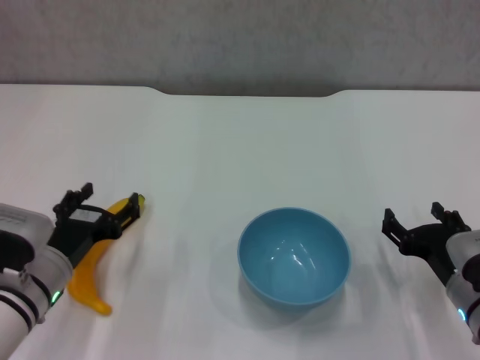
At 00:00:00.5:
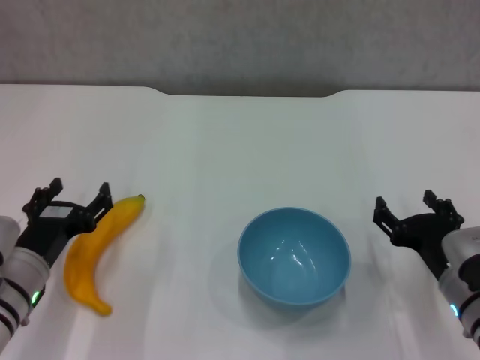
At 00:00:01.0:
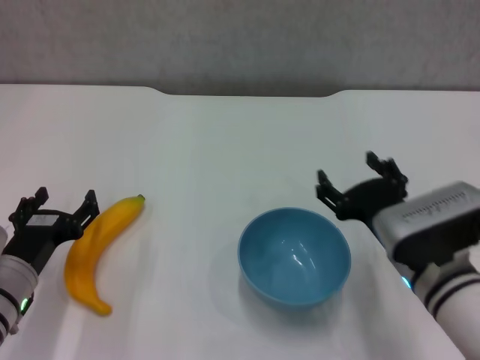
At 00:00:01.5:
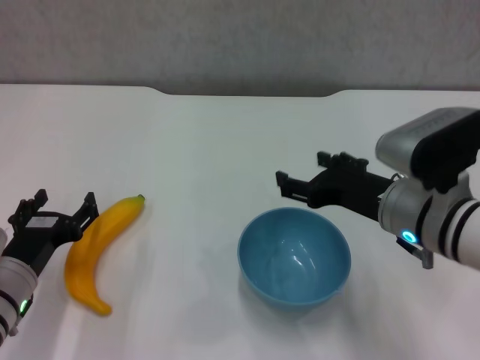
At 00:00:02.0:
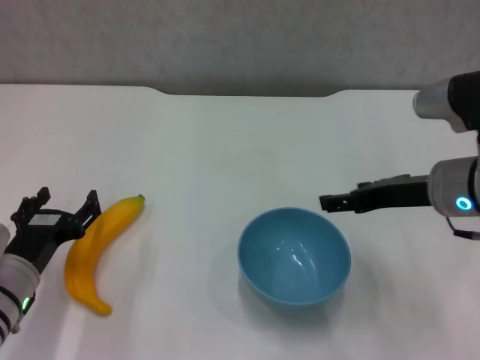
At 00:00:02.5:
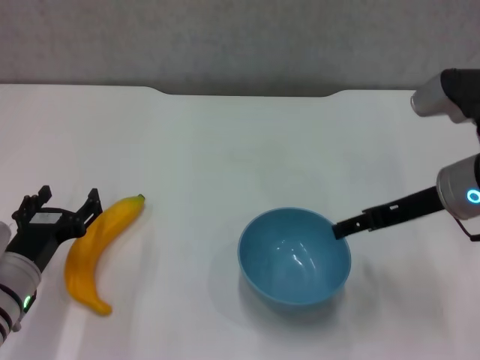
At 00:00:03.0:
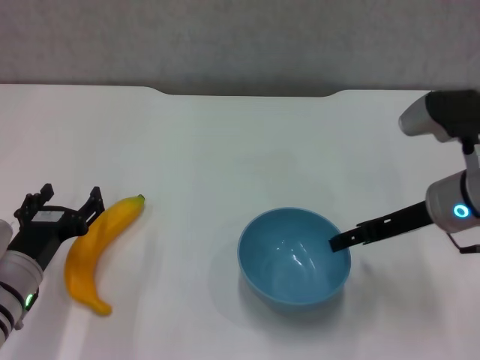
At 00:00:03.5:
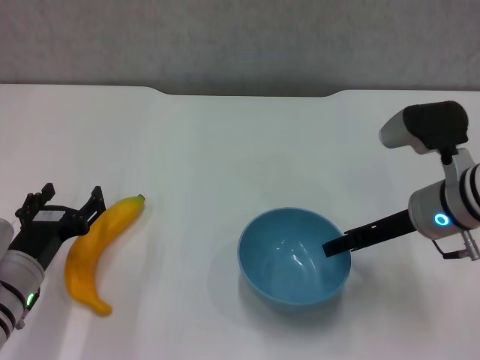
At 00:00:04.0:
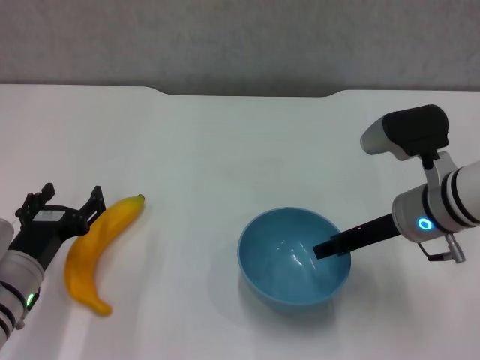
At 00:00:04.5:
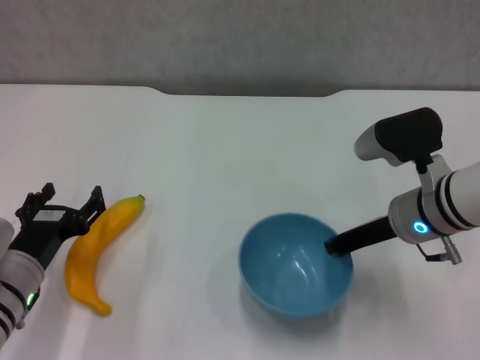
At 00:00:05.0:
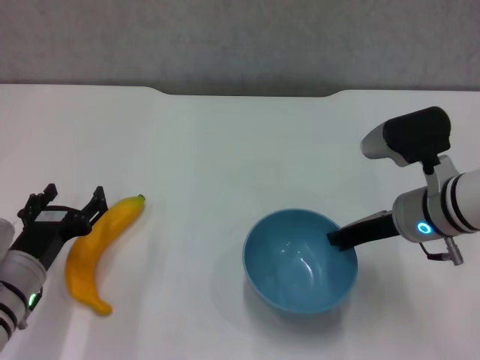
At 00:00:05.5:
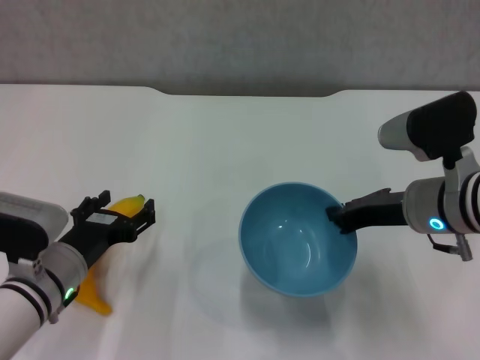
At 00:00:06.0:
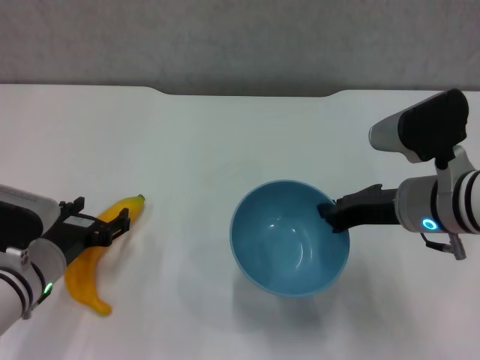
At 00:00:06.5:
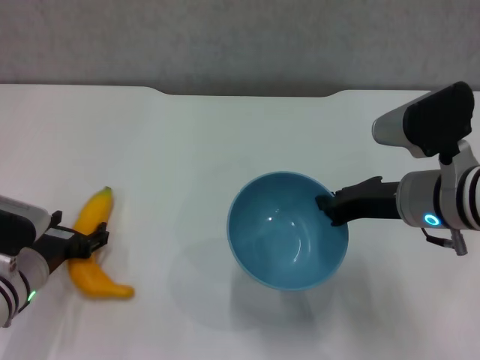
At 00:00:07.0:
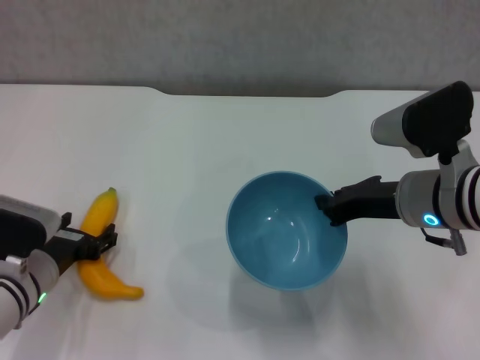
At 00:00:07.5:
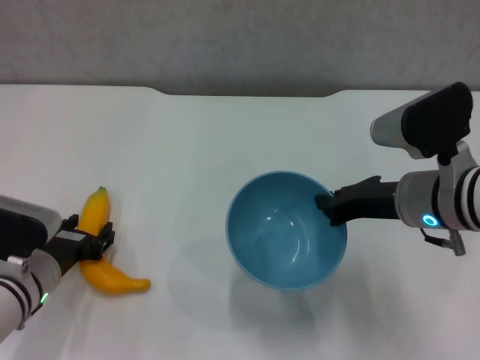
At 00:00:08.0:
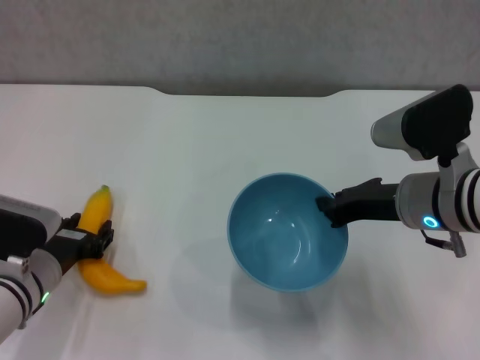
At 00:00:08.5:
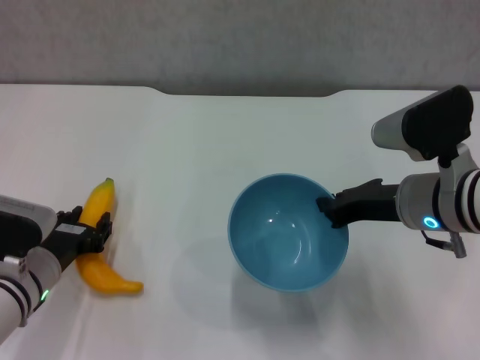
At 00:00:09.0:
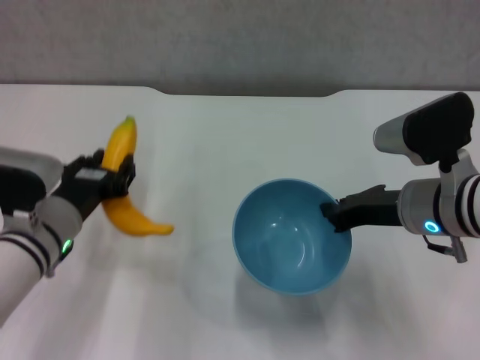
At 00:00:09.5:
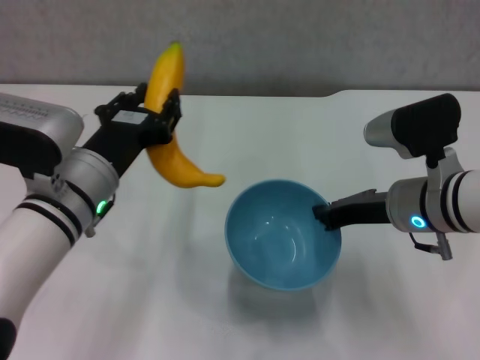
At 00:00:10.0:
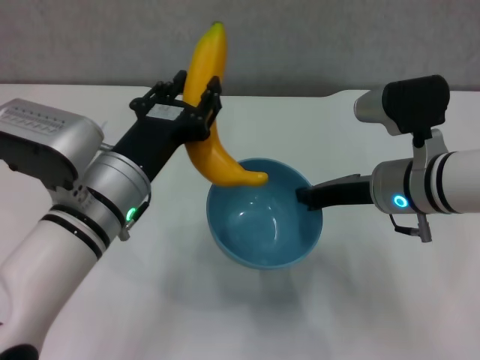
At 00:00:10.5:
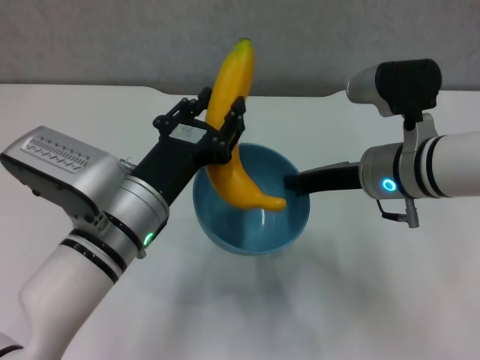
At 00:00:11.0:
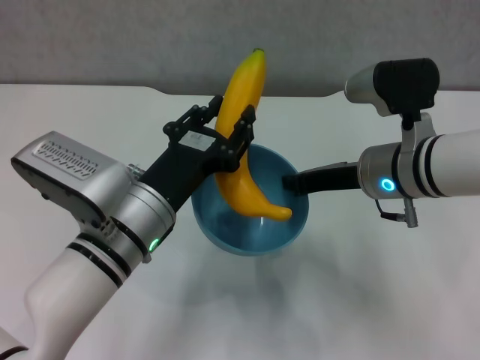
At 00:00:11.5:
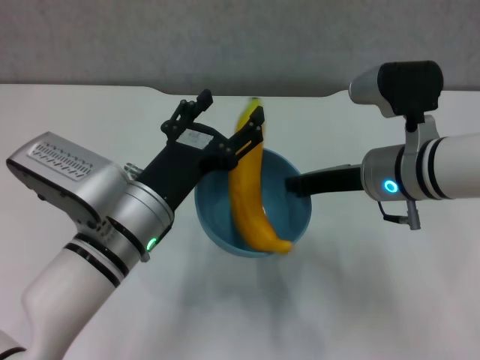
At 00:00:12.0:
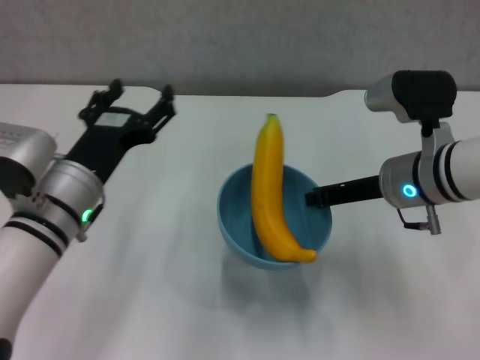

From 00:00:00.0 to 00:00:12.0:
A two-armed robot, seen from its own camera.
Step, from 00:00:00.0 to 00:00:04.5: Grasp the blue bowl with right gripper.
Step, from 00:00:05.5 to 00:00:08.0: Grasp the banana with left gripper.
Step, from 00:00:08.5 to 00:00:11.0: Place the banana in the blue bowl with left gripper.
From 00:00:00.0 to 00:00:02.0: The right gripper travels upward and forward by approximately 15 cm.
From 00:00:02.0 to 00:00:04.0: The right gripper shifts by approximately 5 cm, and closes.
From 00:00:04.0 to 00:00:06.0: The right gripper closes.
From 00:00:06.0 to 00:00:08.0: The left gripper closes up.
From 00:00:08.0 to 00:00:10.0: The left gripper goes some 15 cm upward and to the right.
From 00:00:10.0 to 00:00:12.0: The left gripper changes place by about 5 cm, and opens up.

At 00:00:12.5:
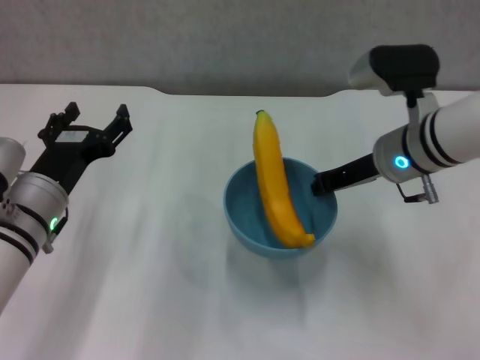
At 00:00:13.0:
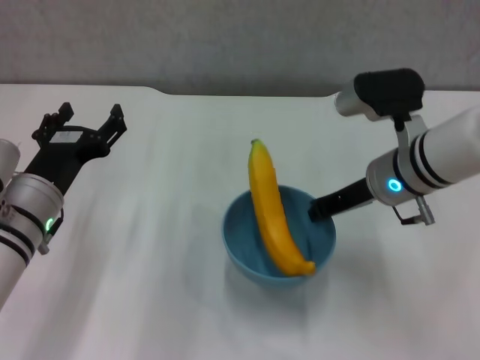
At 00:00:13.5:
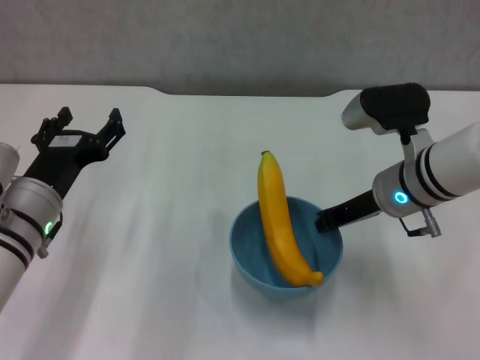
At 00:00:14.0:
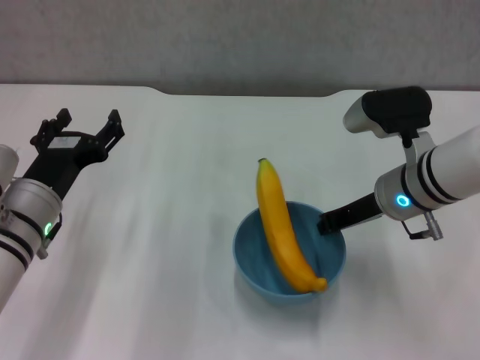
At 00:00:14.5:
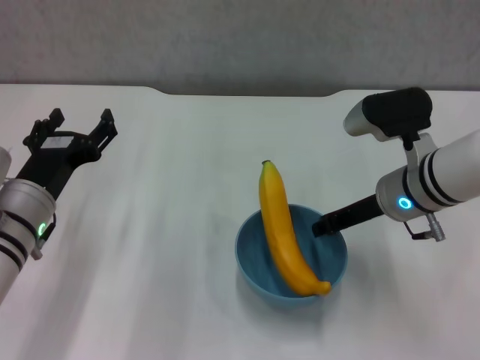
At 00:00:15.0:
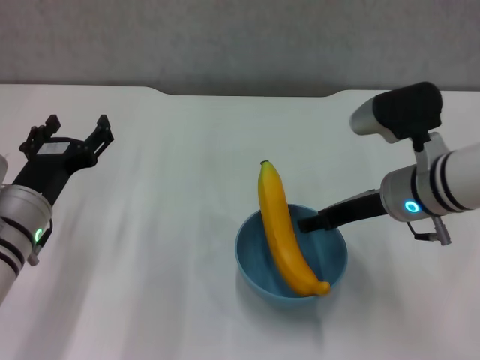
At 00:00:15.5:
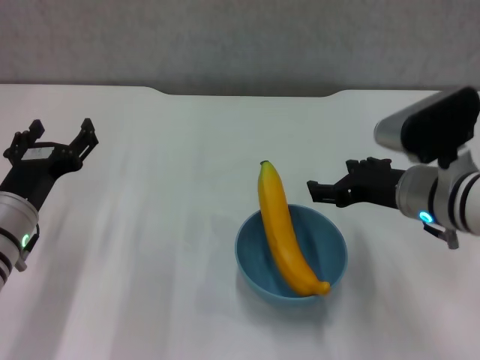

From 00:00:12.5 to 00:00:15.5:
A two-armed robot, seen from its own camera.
Step, from 00:00:12.5 to 00:00:15.0: Place the bowl on the table with right gripper.
From 00:00:14.0 to 00:00:15.5: The right gripper opens up.

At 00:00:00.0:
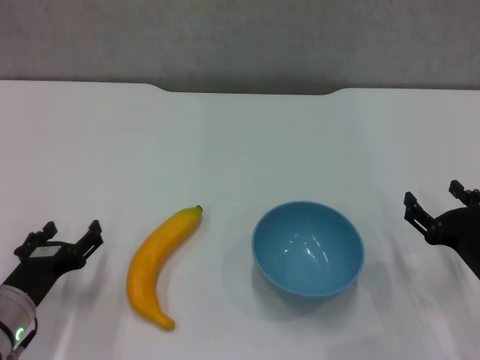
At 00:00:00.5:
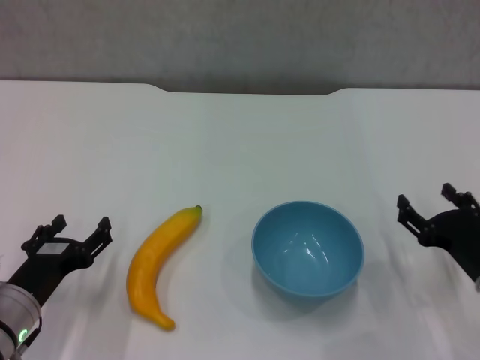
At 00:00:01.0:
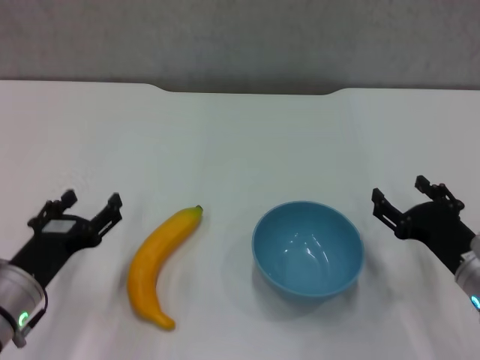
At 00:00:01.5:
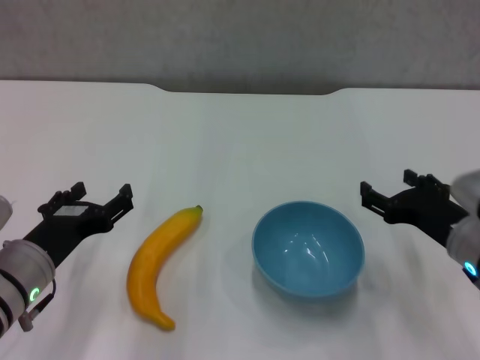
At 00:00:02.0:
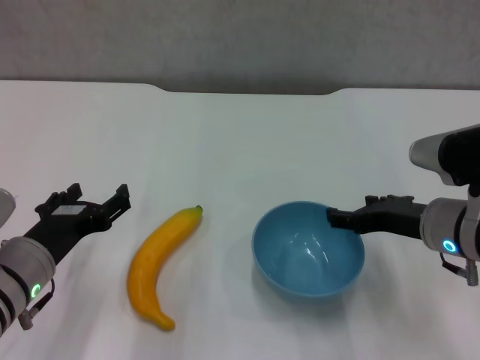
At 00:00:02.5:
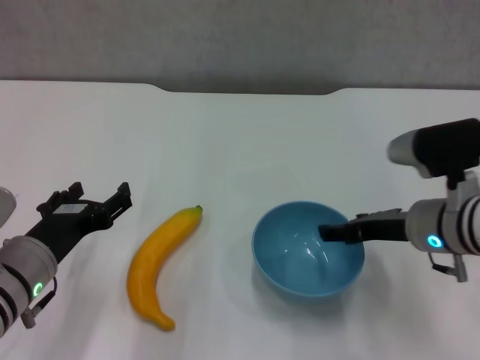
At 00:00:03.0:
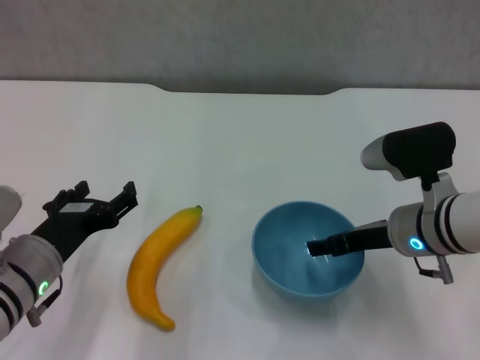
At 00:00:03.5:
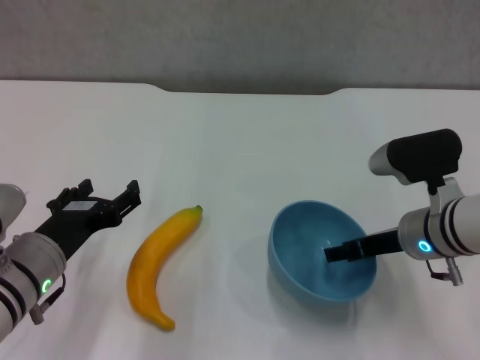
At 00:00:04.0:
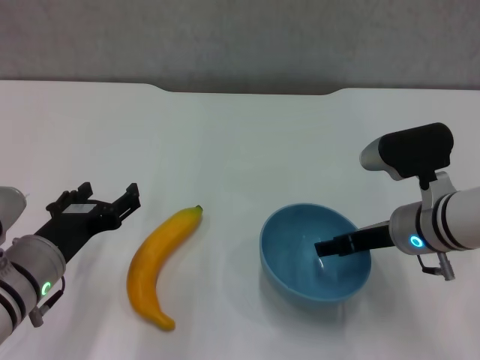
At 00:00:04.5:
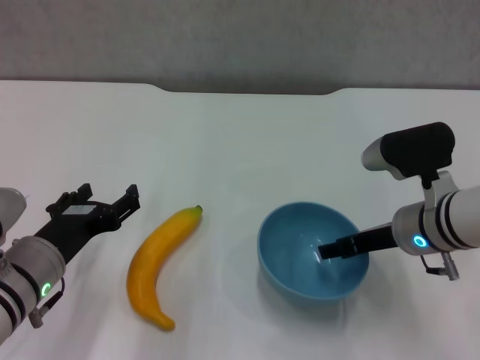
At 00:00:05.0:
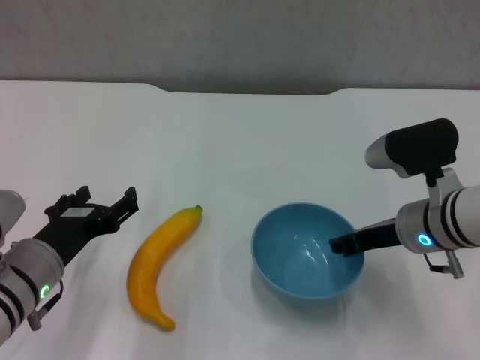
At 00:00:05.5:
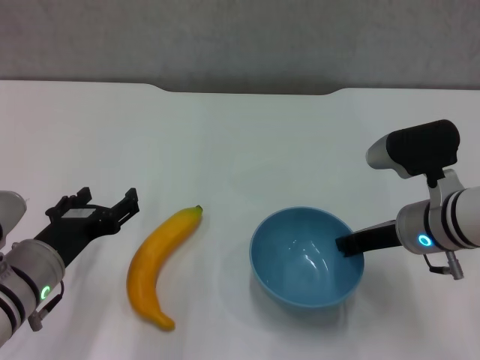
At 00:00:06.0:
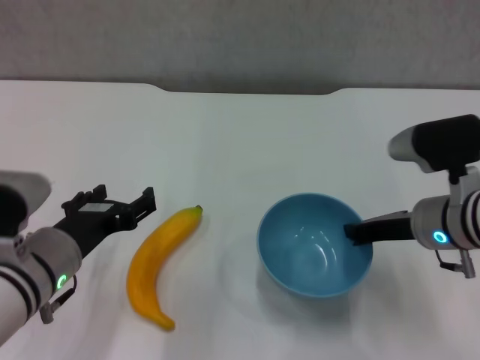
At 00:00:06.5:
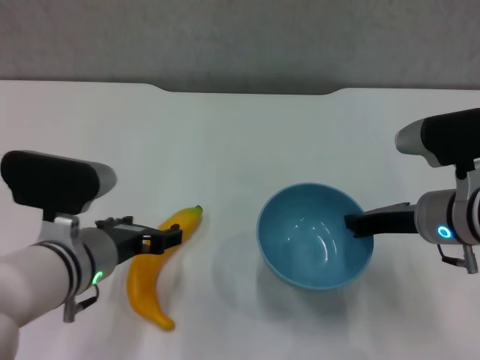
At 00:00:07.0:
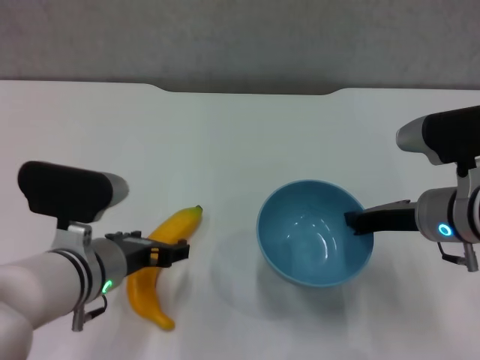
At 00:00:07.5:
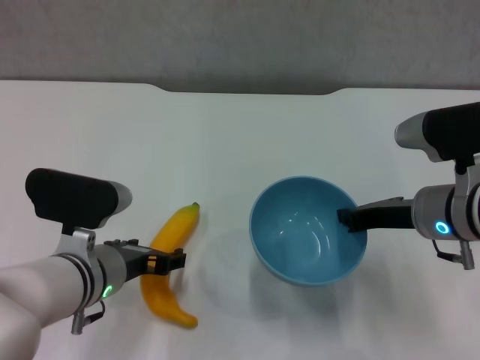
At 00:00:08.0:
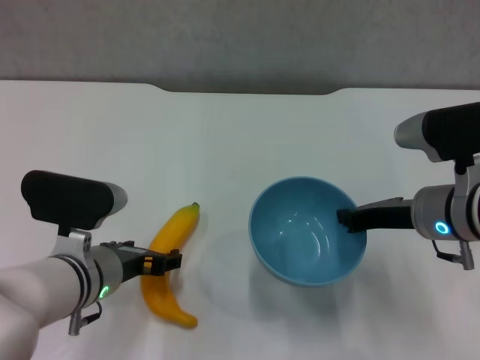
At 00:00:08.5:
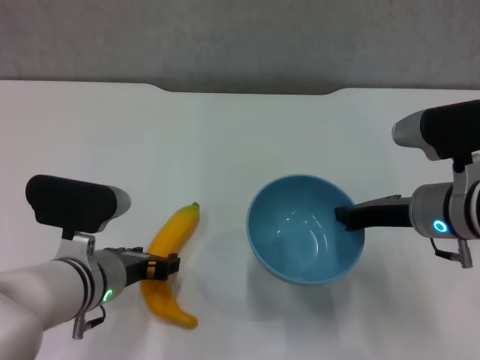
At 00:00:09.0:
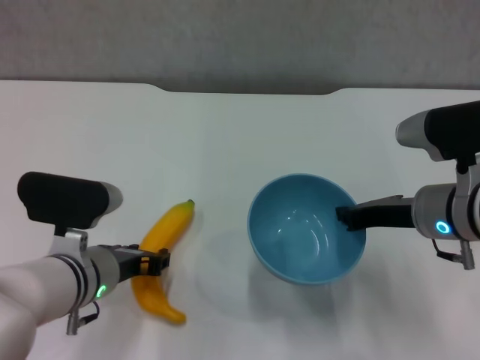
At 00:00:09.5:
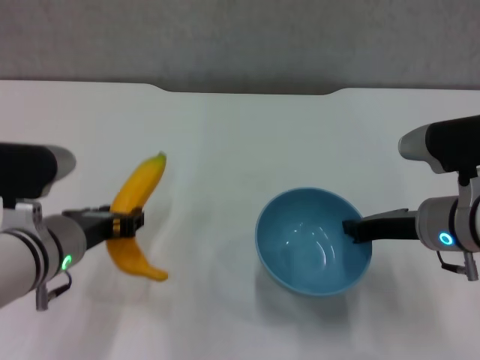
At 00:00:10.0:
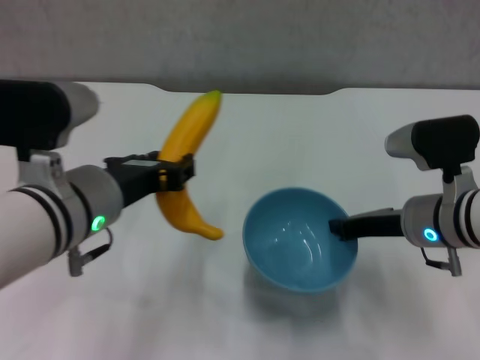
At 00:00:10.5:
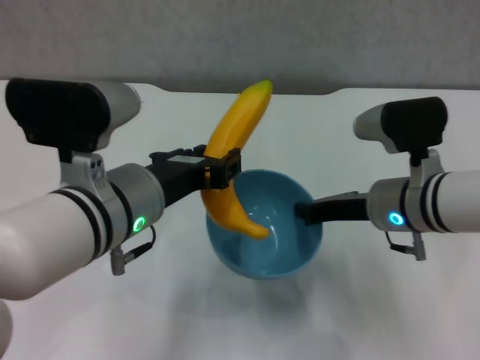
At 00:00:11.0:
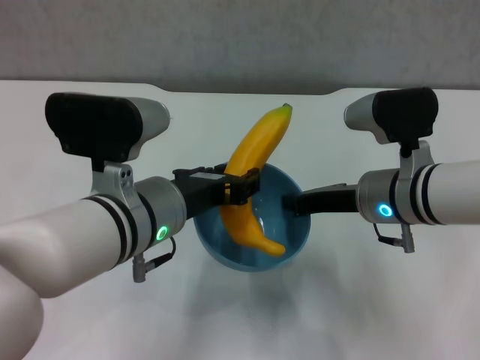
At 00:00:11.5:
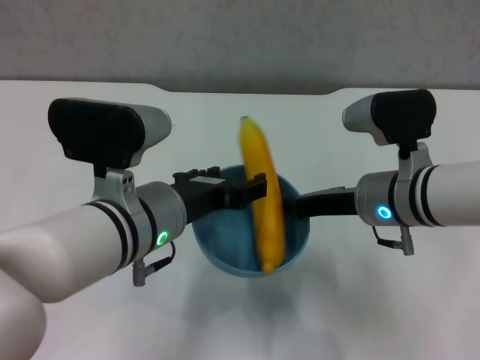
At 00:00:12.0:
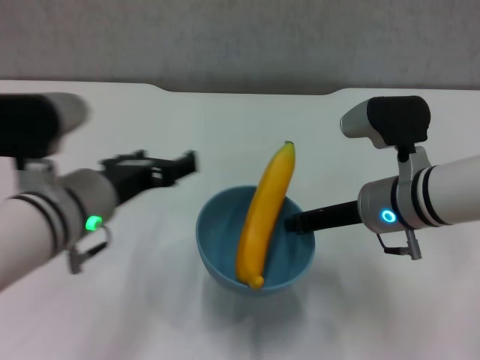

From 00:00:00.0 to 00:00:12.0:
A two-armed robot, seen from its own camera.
Step, from 00:00:00.0 to 00:00:05.5: Grasp the blue bowl with right gripper.
Step, from 00:00:06.0 to 00:00:06.5: Lift the blue bowl with right gripper.
Step, from 00:00:07.0 to 00:00:08.5: Grasp the banana with left gripper.
Step, from 00:00:09.0 to 00:00:11.5: Place the banana in the blue bowl with left gripper.
From 00:00:00.0 to 00:00:02.0: The left gripper shifts approximately 5 cm upward. The right gripper shifts roughly 10 cm upward, to the left and forward.
From 00:00:02.0 to 00:00:04.0: The grippers stay close to where they were, moving slightly.
From 00:00:04.0 to 00:00:06.0: The right gripper closes.
From 00:00:08.0 to 00:00:10.0: The left gripper shifts some 10 cm upward, and closes its fingers.
From 00:00:10.0 to 00:00:12.0: The left gripper opens.
